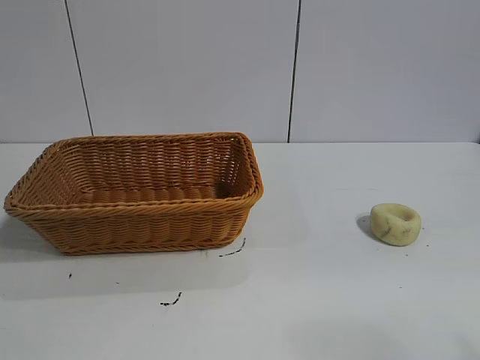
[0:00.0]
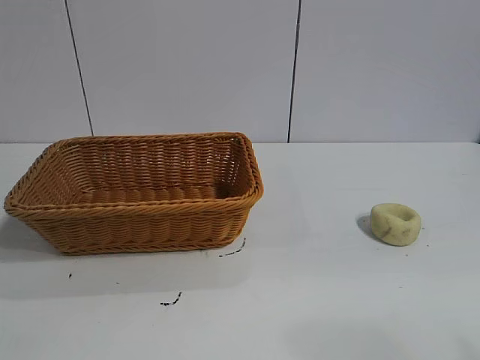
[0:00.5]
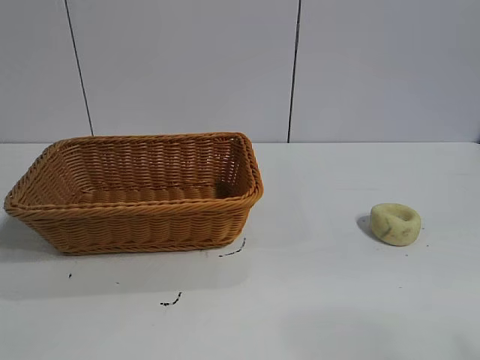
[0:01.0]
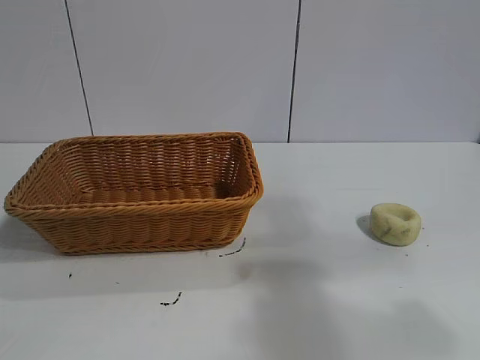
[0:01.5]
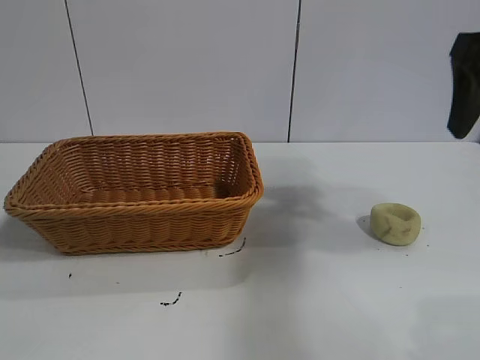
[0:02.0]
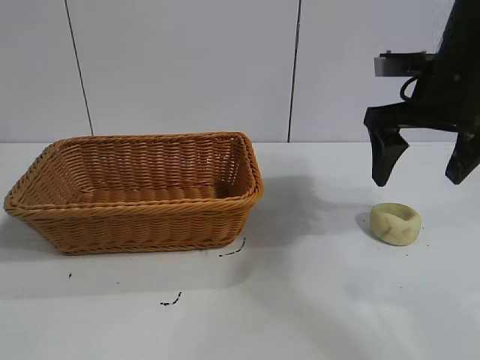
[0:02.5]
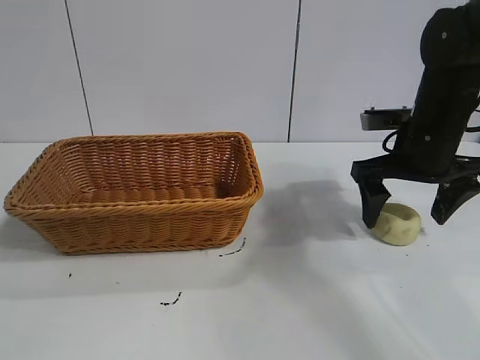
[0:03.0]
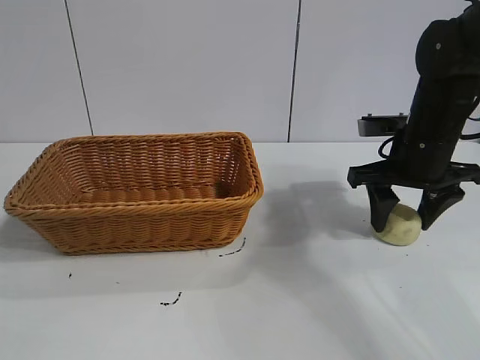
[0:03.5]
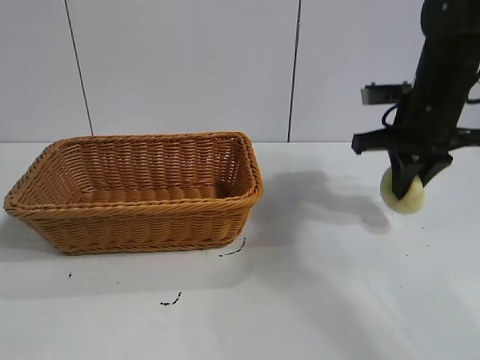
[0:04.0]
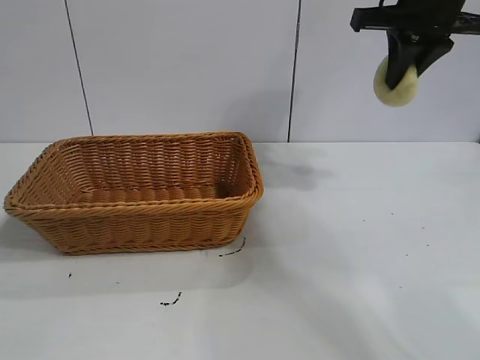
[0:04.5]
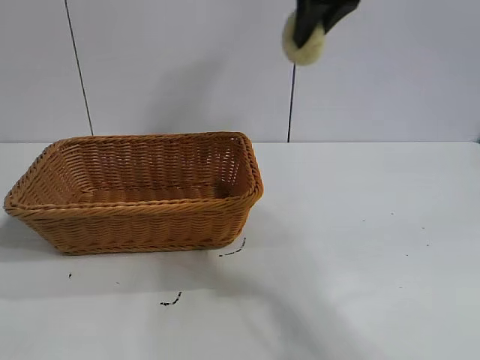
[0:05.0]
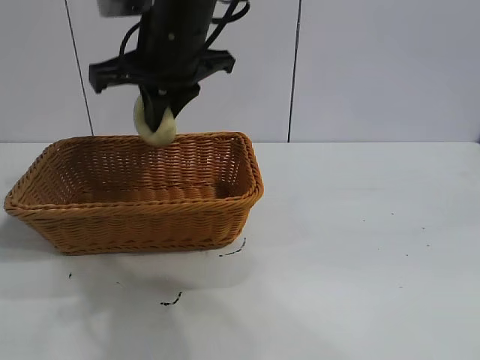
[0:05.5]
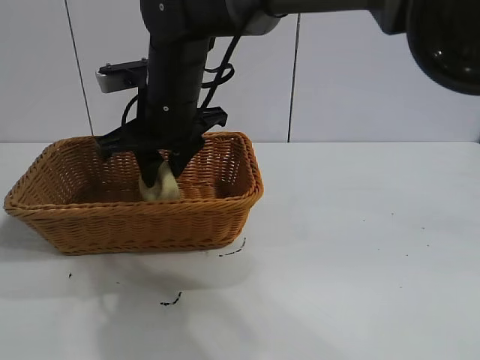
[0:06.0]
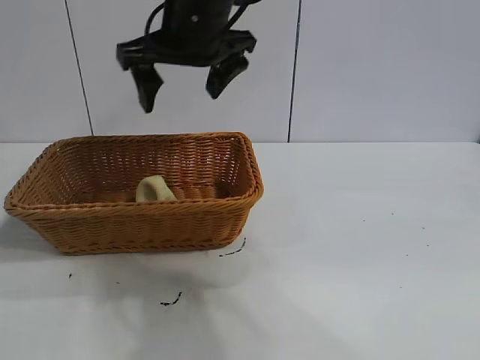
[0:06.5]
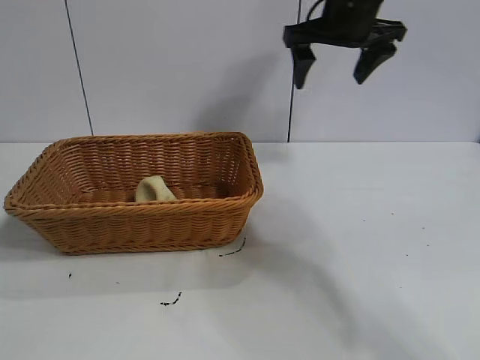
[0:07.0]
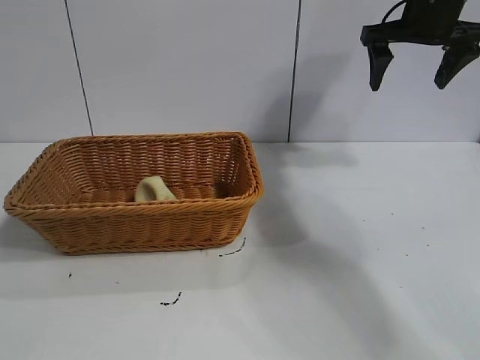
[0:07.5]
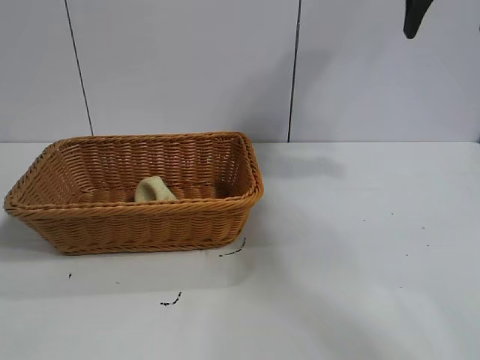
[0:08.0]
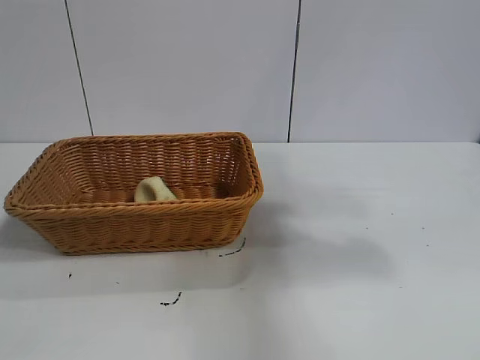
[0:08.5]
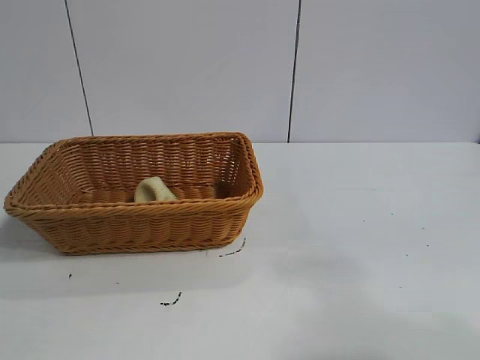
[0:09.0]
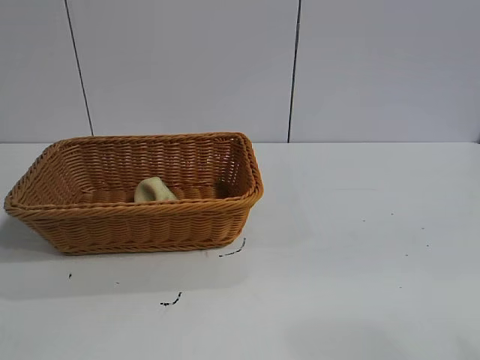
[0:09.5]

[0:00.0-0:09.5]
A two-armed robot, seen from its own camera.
Task of the whole recording: pick up the egg yolk pastry and put it into the basket.
Step, 0:01.0 to 0:03.5: Grasp egg yolk pastry with right gripper.
Step, 0:04.0 to 0:06.0: Place the egg yolk pastry in the basket with right gripper.

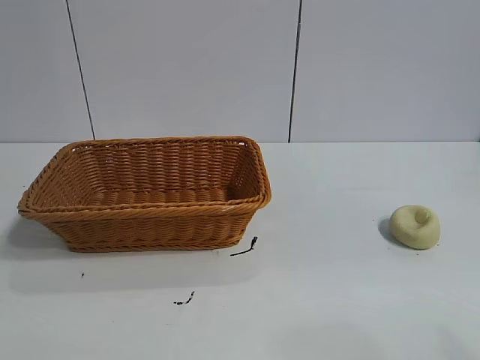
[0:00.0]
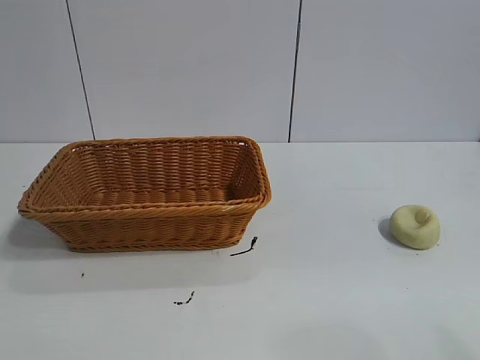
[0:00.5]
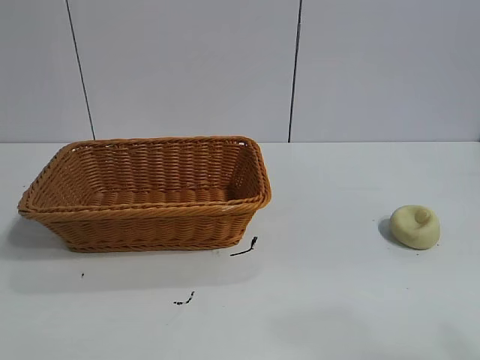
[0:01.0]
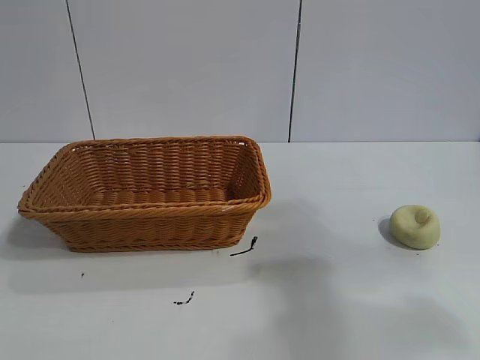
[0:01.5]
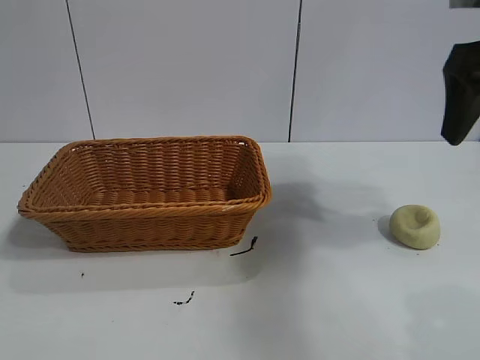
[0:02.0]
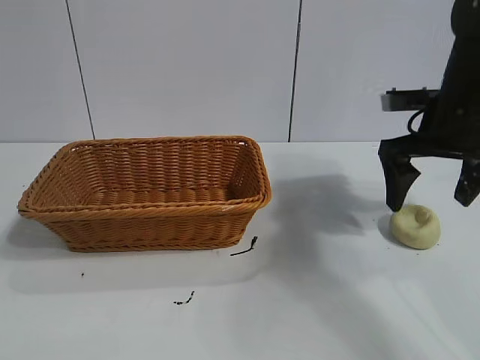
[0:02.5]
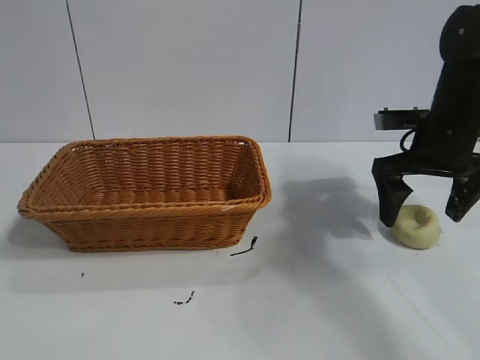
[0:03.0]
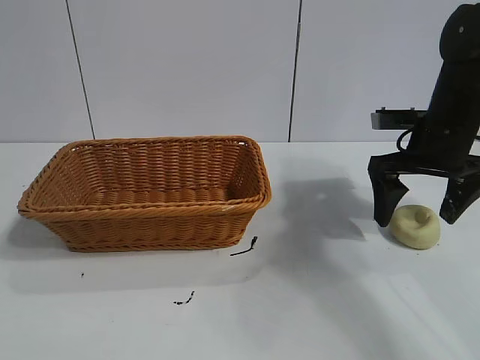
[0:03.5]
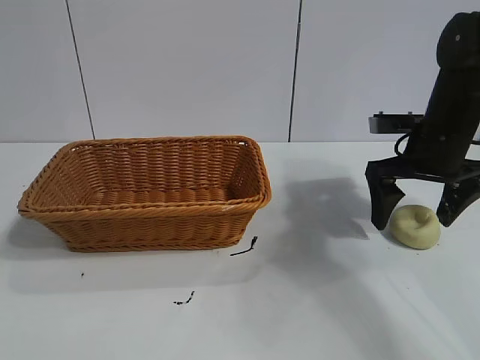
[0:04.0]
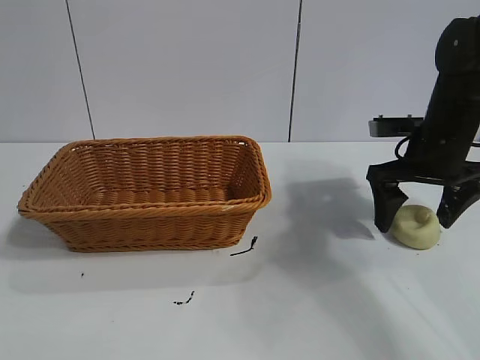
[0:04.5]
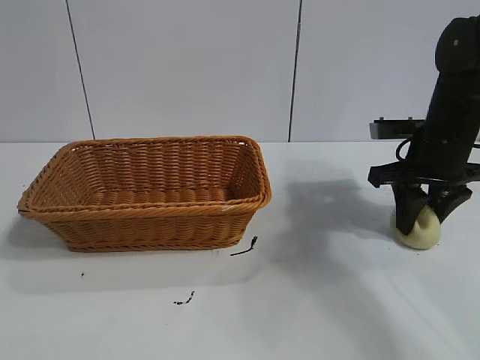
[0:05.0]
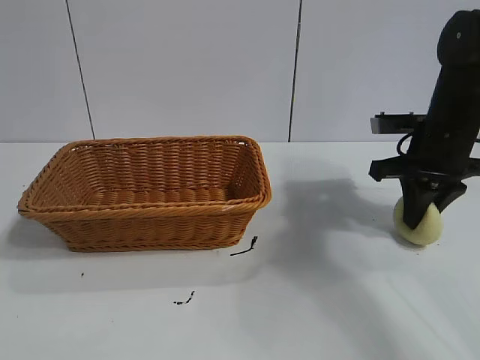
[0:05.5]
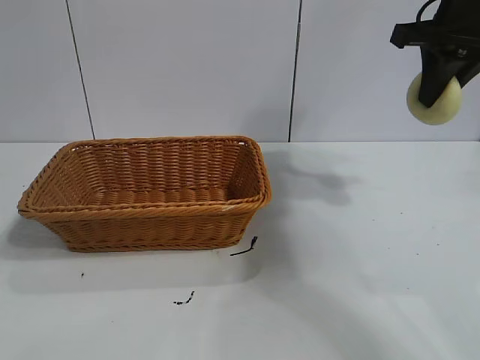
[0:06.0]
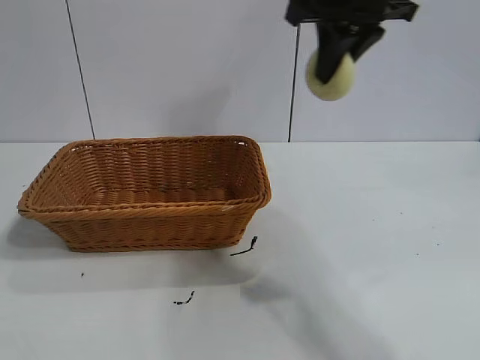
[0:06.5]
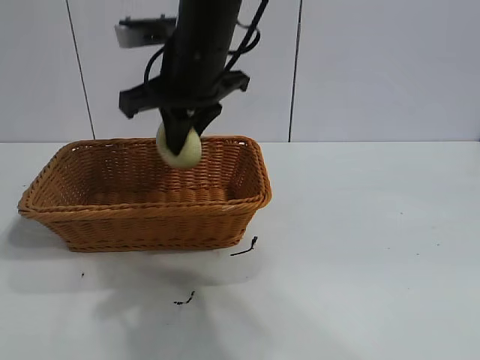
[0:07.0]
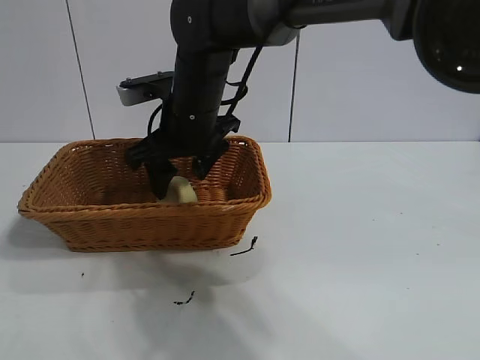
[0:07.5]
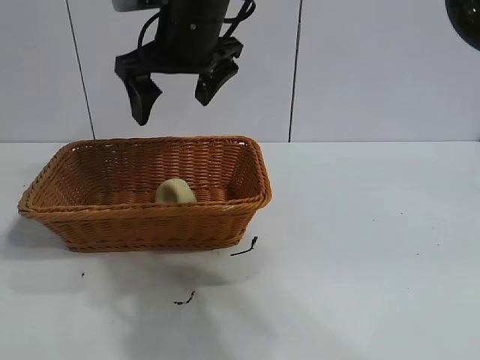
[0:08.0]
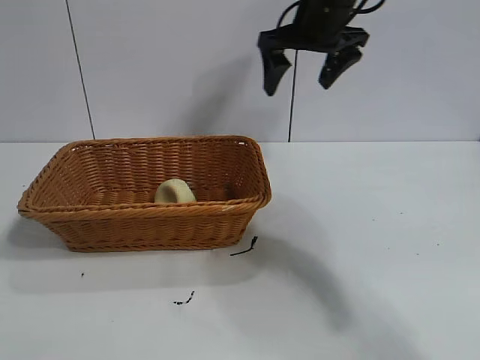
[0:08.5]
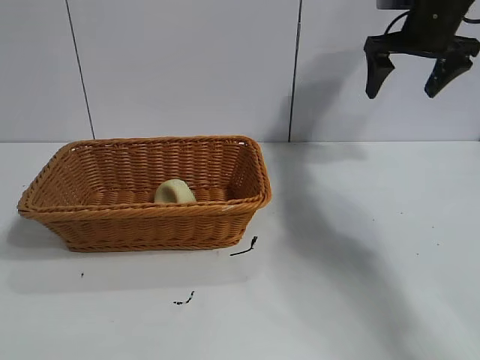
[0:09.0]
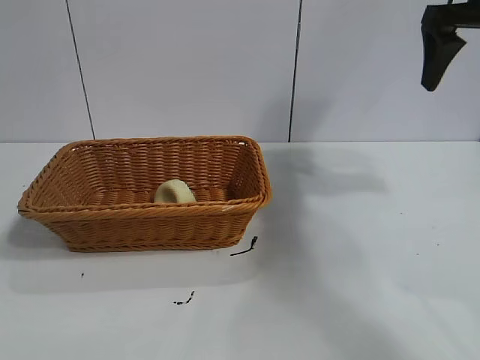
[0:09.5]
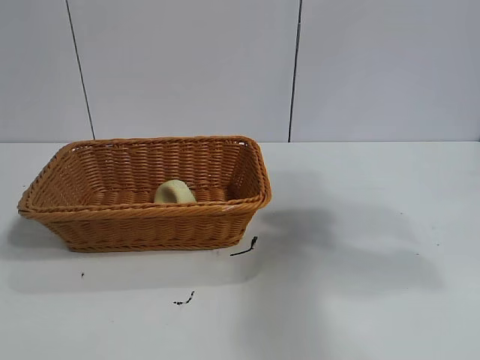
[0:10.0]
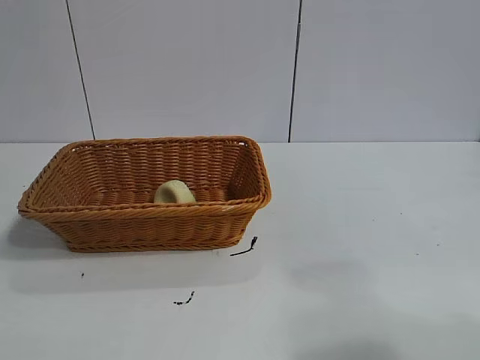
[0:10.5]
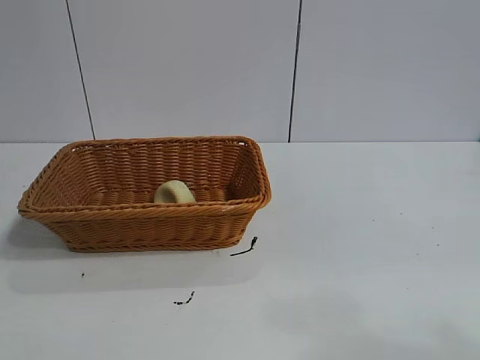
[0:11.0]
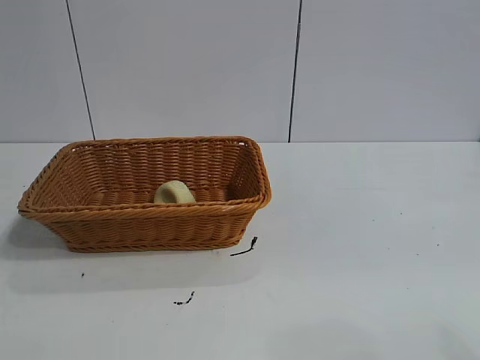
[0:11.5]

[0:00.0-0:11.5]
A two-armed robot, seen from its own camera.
Task of the whole recording: pick up the egg yolk pastry and put it into the basket.
Step, 0:01.0 to 0:05.0: Grasp egg yolk pastry with right gripper.
Step, 0:06.0 to 0:07.5: Place the egg yolk pastry in the basket with right gripper.
